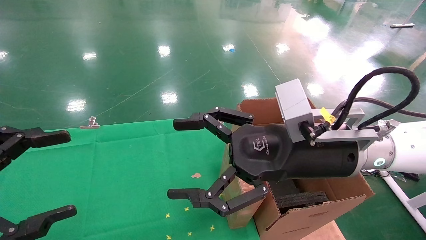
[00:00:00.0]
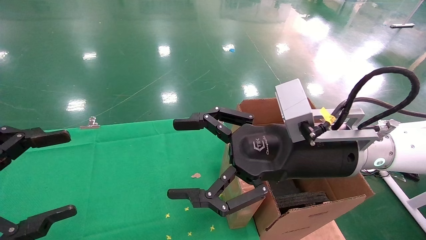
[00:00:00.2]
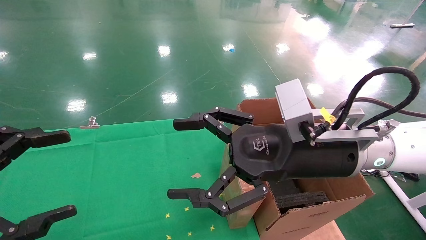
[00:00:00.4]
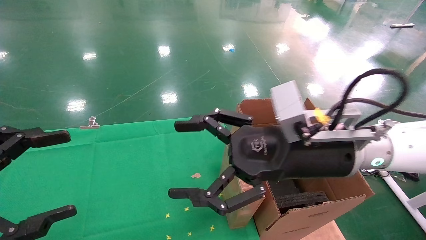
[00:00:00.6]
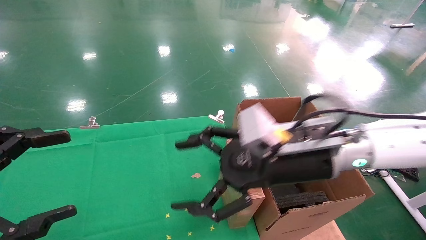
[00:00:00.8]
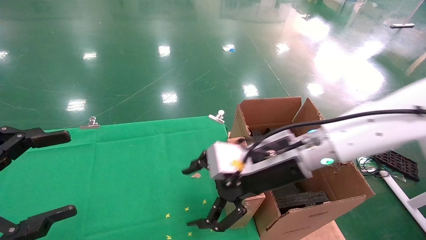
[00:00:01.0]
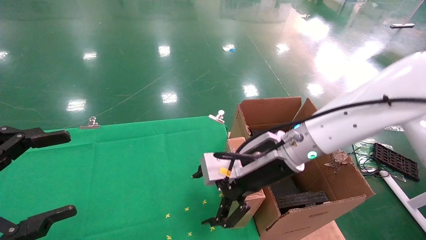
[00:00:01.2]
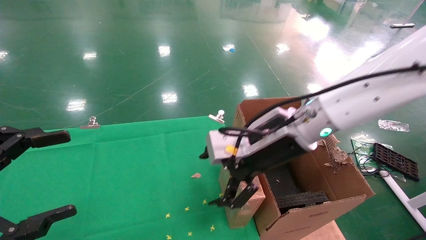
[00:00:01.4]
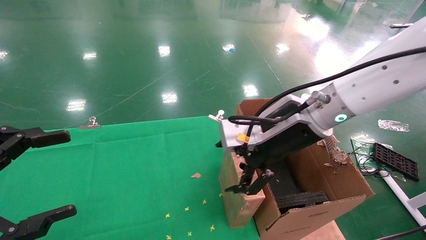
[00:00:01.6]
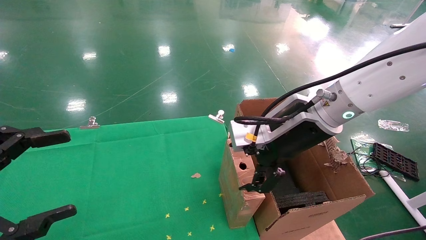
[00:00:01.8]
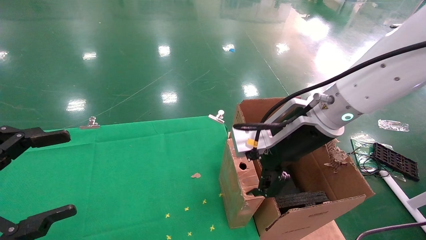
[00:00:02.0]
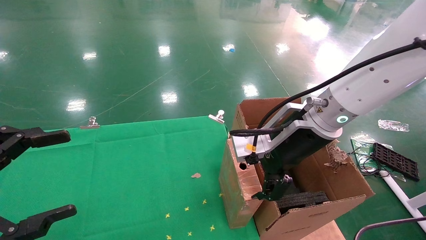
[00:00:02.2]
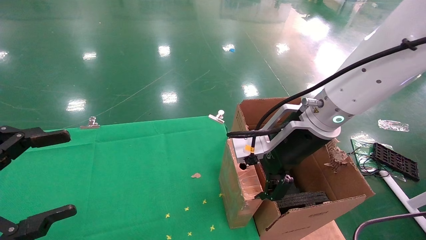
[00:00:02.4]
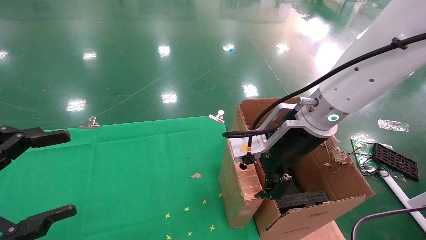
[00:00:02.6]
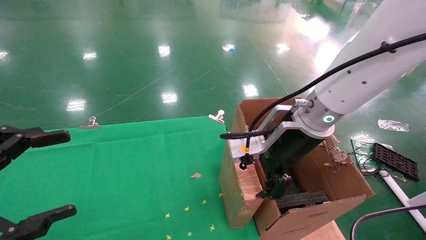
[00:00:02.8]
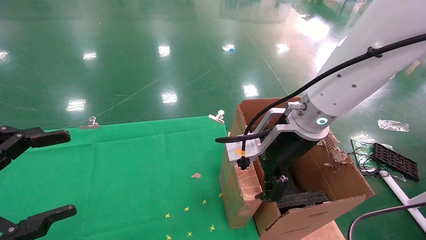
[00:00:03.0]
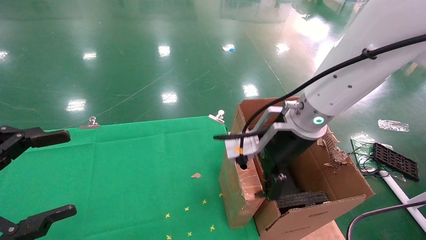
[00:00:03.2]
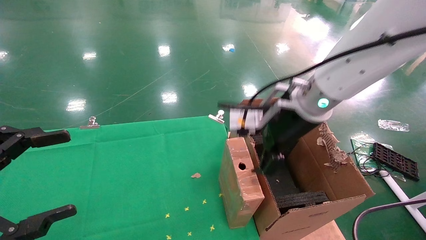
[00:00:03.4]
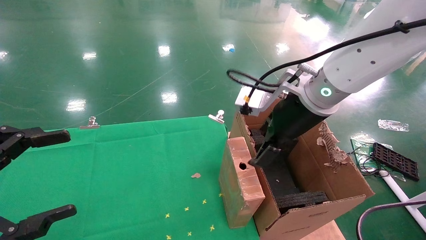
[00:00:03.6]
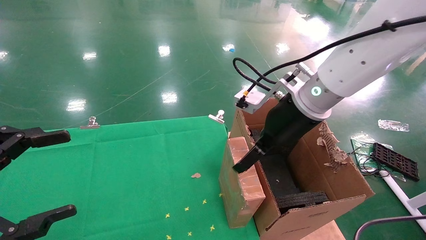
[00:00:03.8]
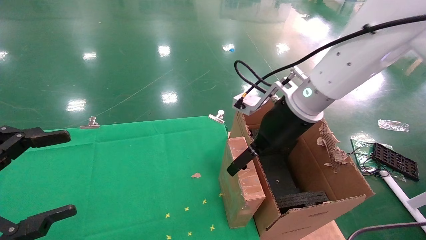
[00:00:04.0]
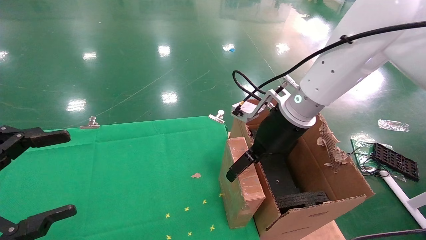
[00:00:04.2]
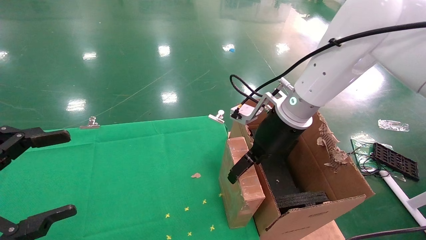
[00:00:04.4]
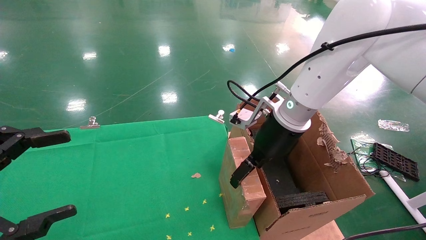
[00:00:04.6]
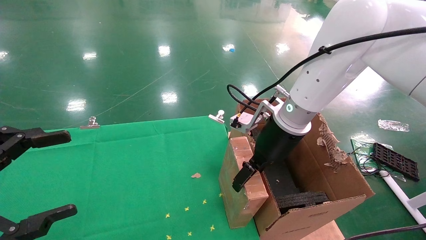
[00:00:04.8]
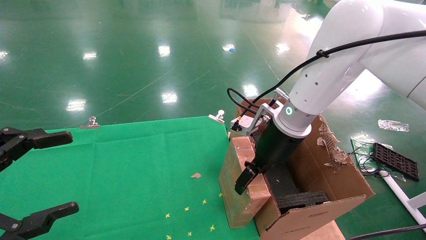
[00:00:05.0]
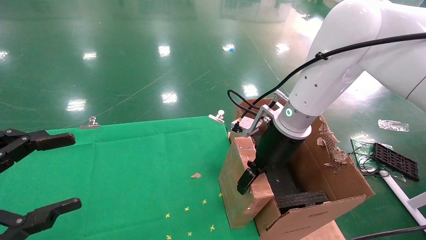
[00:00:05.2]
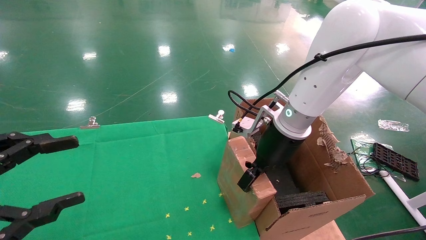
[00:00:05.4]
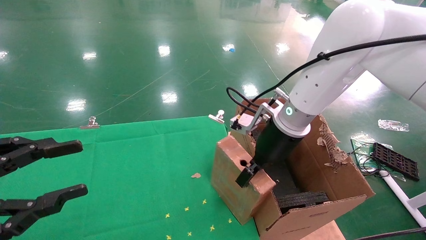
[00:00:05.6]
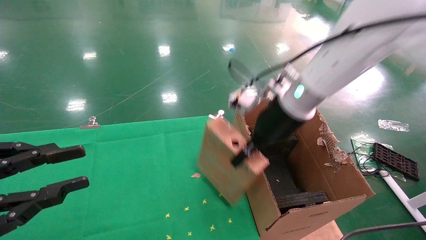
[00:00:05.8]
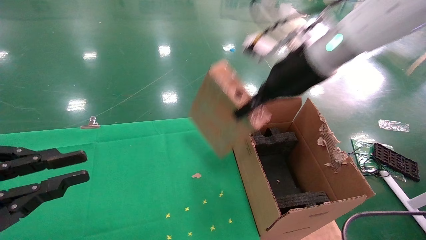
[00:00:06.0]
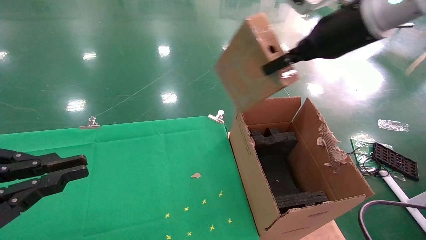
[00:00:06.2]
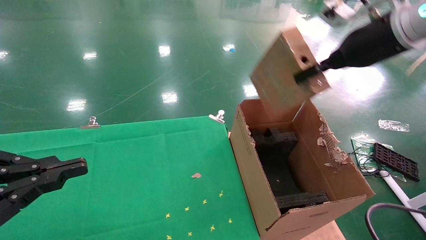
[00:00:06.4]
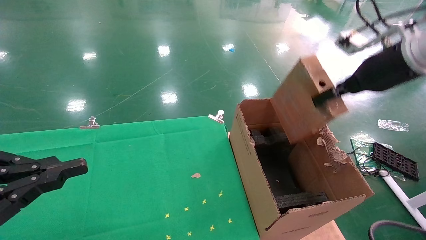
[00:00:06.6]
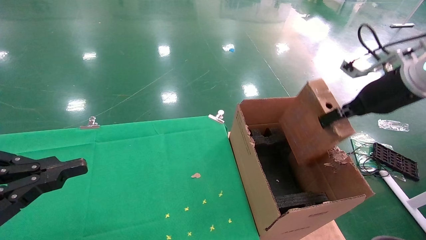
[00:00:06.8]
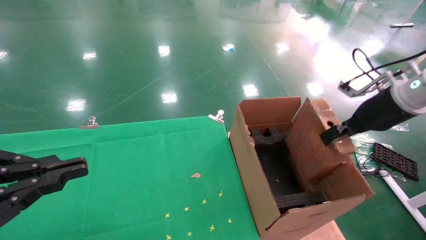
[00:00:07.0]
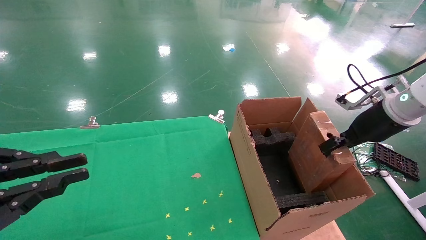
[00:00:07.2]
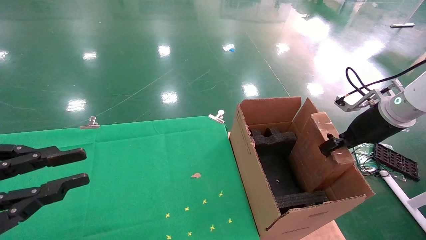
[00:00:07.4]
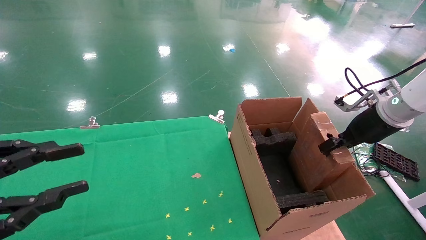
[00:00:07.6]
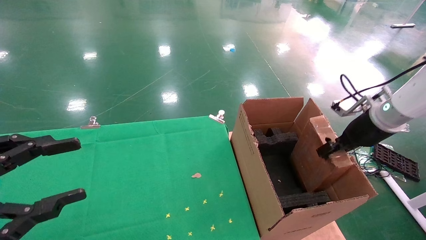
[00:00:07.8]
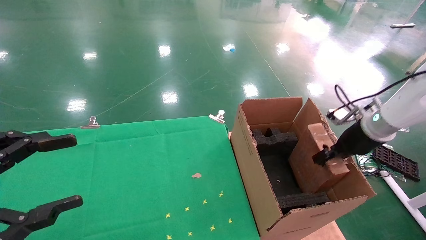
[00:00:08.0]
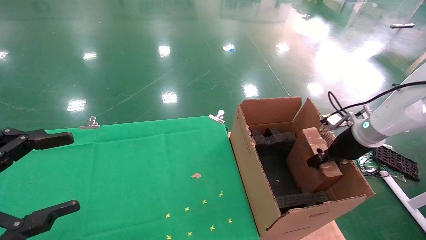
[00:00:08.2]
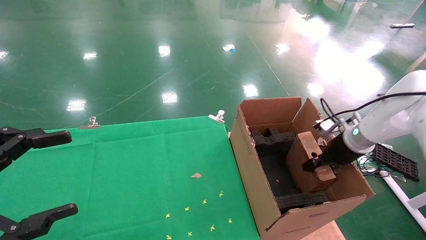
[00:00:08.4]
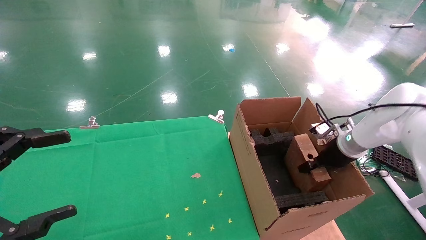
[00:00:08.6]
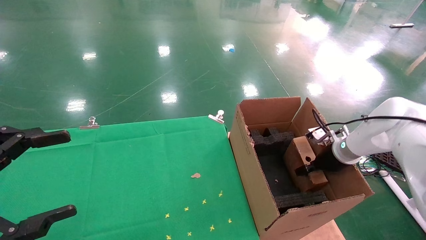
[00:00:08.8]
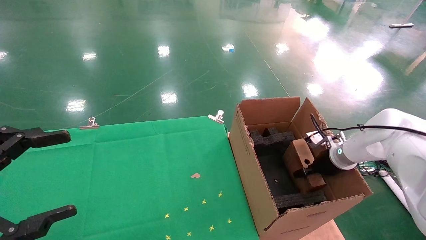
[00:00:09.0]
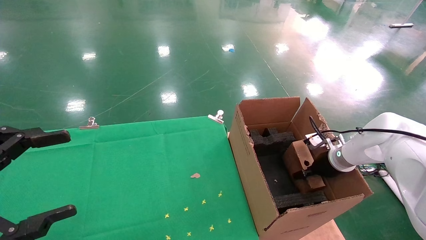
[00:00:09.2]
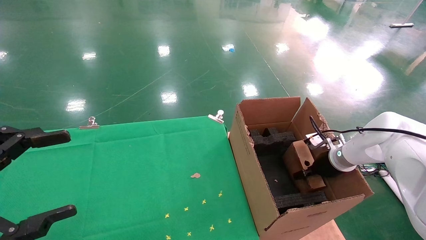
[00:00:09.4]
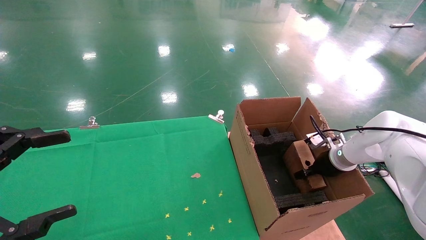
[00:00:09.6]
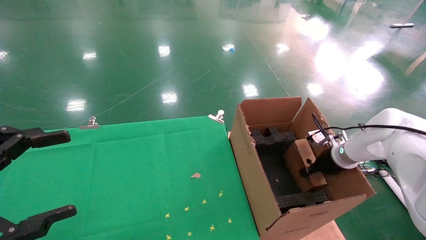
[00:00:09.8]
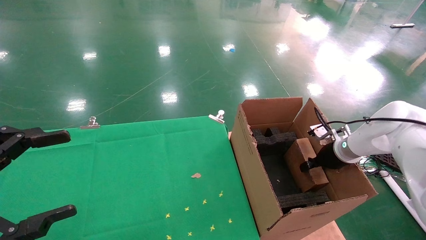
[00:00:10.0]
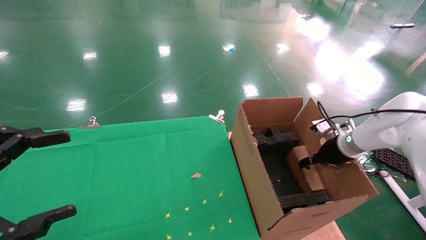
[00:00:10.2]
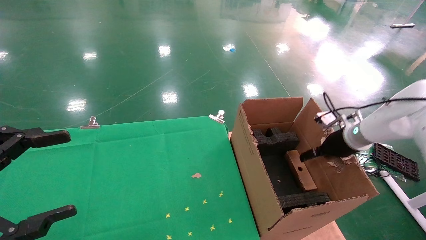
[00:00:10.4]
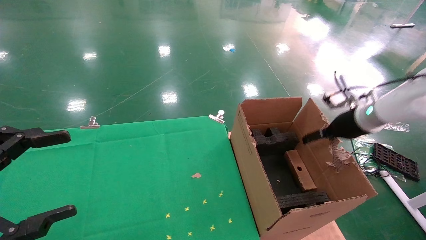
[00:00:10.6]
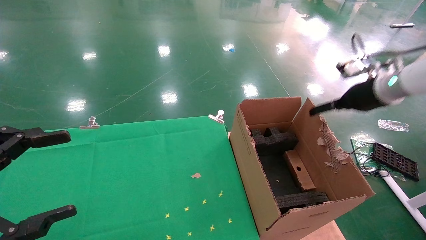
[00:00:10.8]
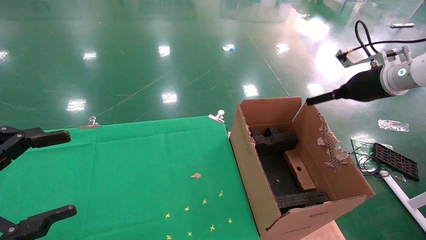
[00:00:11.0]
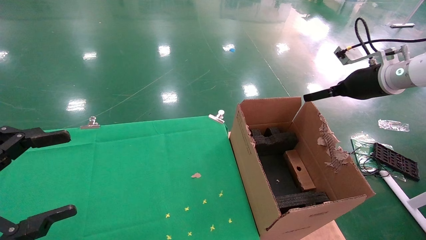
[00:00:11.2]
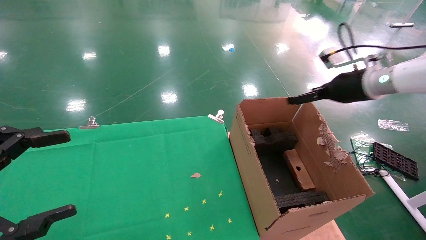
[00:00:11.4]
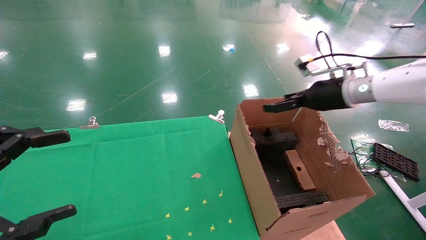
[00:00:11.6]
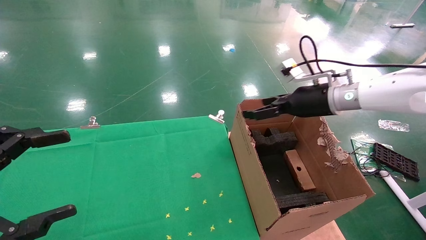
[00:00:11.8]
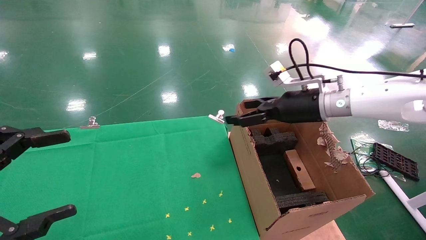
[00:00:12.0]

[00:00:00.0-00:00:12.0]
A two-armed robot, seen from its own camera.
Task of the whole recording: using a robotic arm to pick up a cardboard box and palace it the carton.
Step, 00:00:01.0 to 00:00:05.6: Pick up the mouse and the power cord paper box.
Step, 00:00:05.8 to 00:00:10.8: Place the mouse and the power cord paper box into the container.
00:00:00.0 to 00:00:01.6: The right gripper is displaced forward by approximately 5 cm.
00:00:03.0 to 00:00:04.4: The right gripper travels forward by about 5 cm.
00:00:04.4 to 00:00:06.0: The right gripper travels upward by some 10 cm, and closes up; the left gripper closes its fingers.
00:00:06.0 to 00:00:07.6: The right gripper heads to the right and downward, covering about 25 cm.
00:00:07.6 to 00:00:09.0: The left gripper opens; the right gripper heads downward and forward, covering about 15 cm.
00:00:09.0 to 00:00:10.4: The right gripper heads upward, covering roughly 10 cm, and opens up.
00:00:10.4 to 00:00:12.0: The right gripper is displaced to the left and upward by some 15 cm.

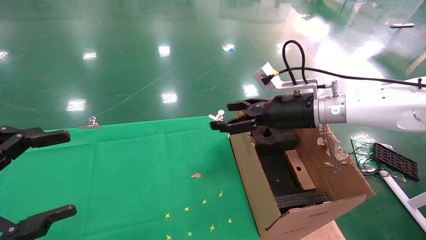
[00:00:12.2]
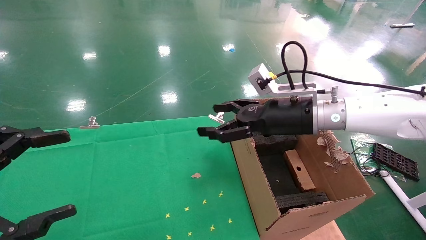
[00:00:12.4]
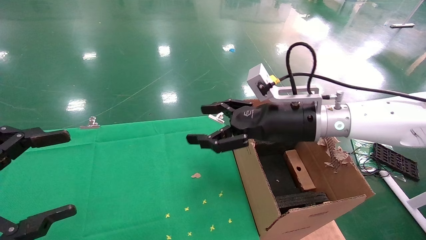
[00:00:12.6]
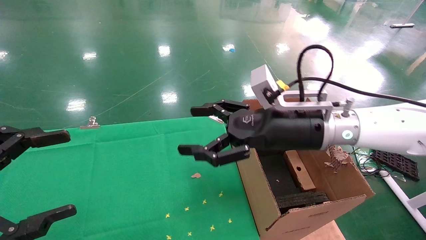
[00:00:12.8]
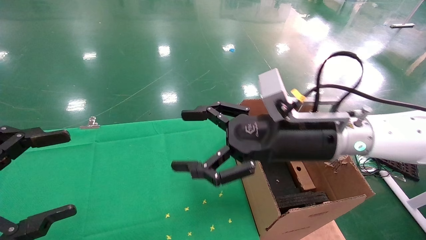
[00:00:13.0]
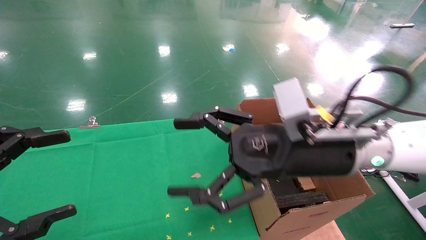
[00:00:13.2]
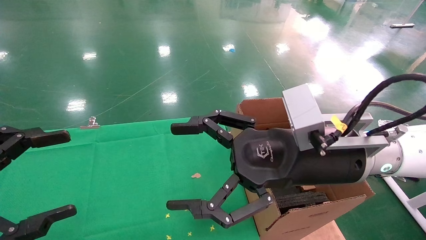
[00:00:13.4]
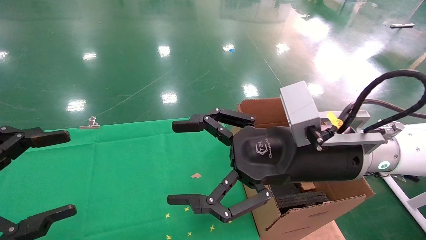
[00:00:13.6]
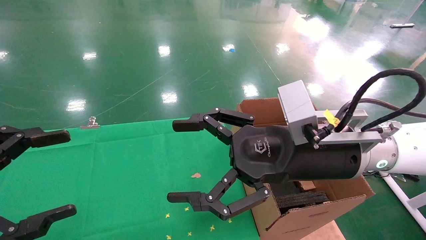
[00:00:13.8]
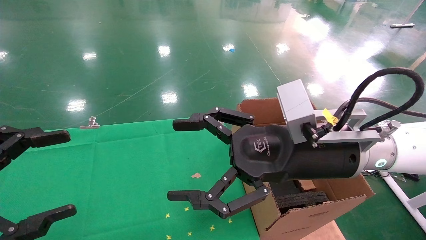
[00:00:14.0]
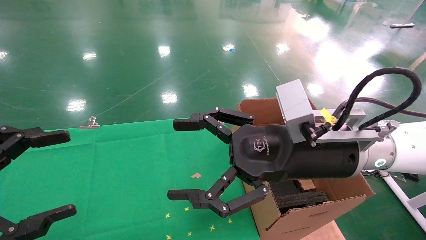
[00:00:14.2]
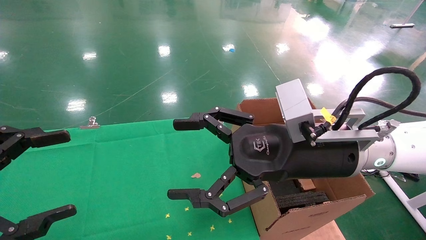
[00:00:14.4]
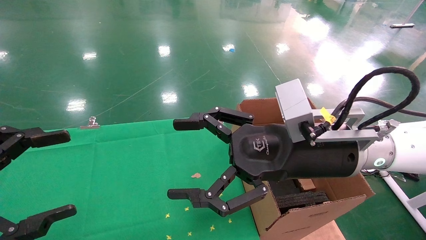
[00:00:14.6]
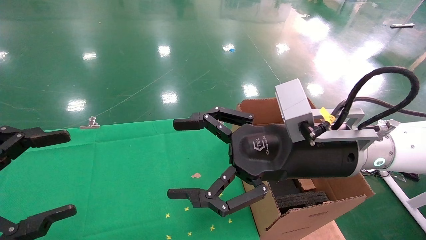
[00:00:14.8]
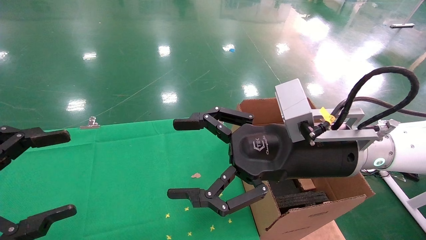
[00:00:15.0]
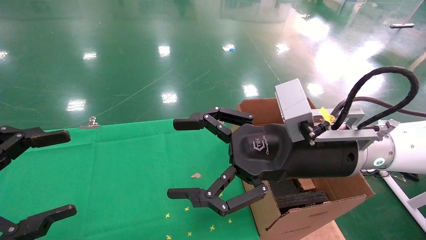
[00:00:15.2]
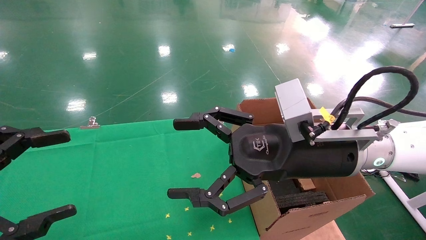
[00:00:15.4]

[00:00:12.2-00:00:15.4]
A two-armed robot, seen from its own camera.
Task of the whole recording: using a robotic arm to pick up a cardboard box and palace it the carton.
00:00:12.2 to 00:00:13.8: The right gripper moves backward and to the left, approximately 15 cm.
00:00:13.8 to 00:00:15.4: Both grippers stay about where they are.
